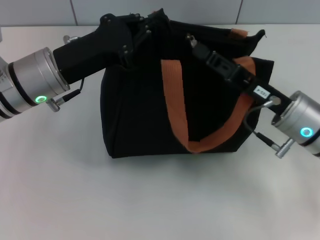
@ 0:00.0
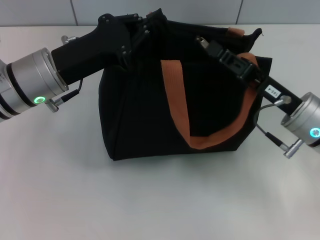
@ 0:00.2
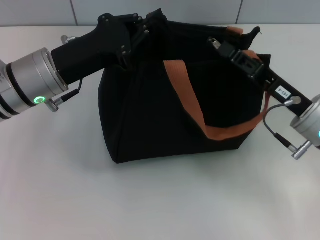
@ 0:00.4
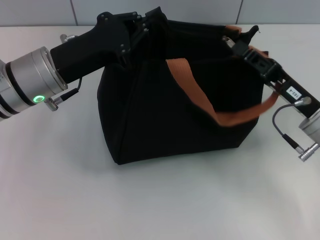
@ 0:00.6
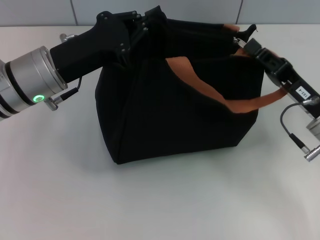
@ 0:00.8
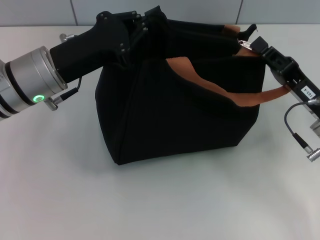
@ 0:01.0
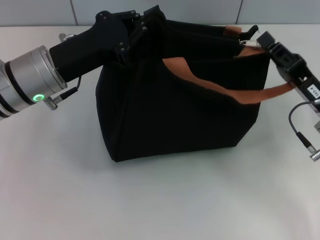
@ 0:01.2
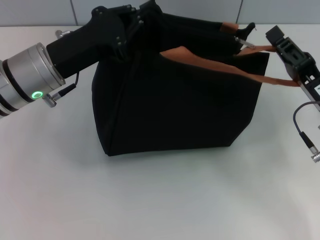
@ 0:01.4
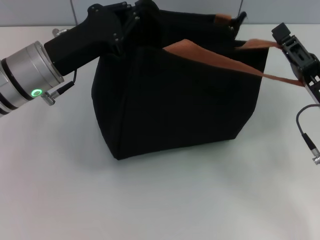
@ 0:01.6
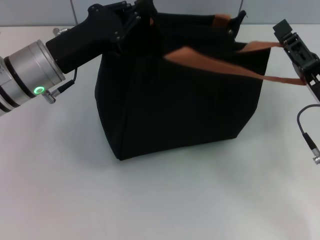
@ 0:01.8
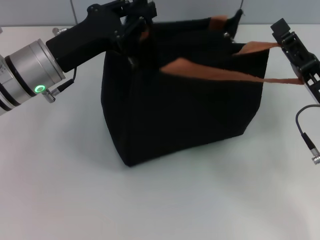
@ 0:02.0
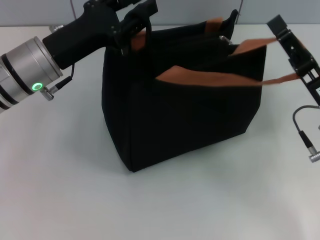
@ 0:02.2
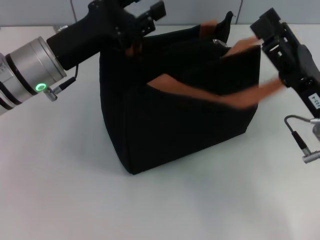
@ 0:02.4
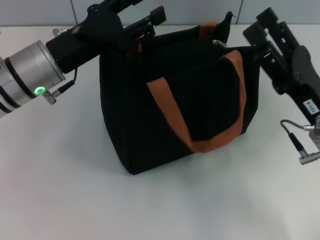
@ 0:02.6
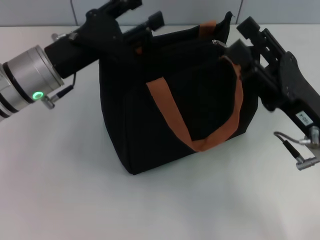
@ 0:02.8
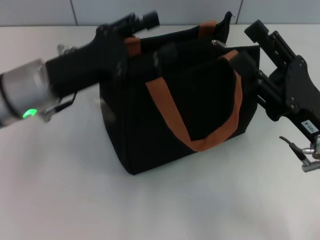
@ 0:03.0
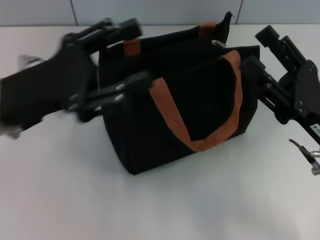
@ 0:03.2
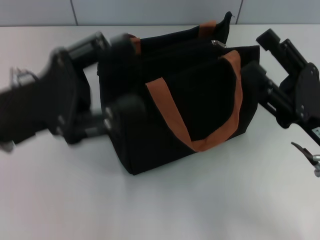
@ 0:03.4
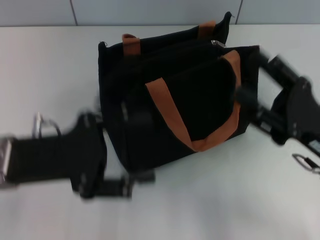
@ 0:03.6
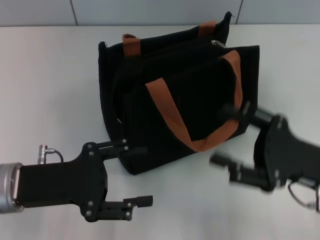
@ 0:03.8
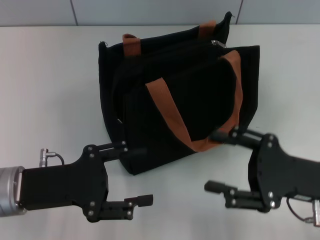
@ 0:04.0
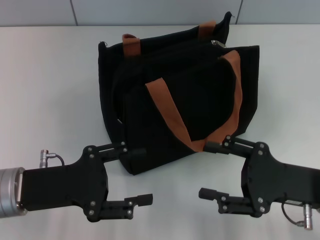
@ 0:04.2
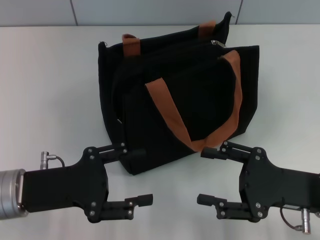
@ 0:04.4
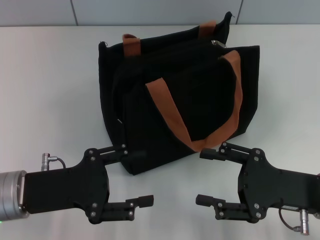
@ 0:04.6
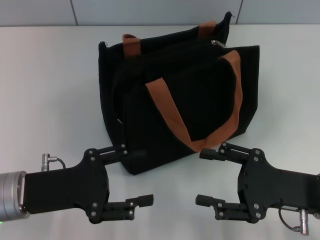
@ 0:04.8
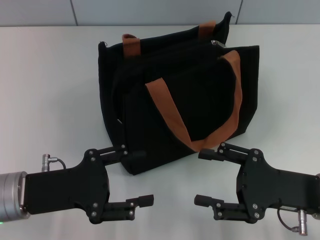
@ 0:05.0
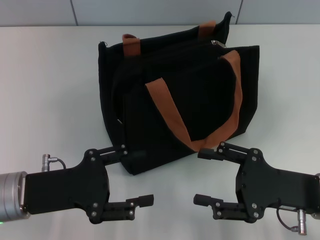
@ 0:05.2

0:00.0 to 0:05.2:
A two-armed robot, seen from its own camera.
Step, 0:01.4 to 0:02.0: Grab the zipper with your left hand.
0:00.0 to 0:01.8: The right gripper is displaced to the right by approximately 5 cm, and opens up.
0:01.8 to 0:03.4: The right gripper opens its fingers, while the left gripper heads backward, covering approximately 10 cm, and opens up.
0:03.4 to 0:05.2: The left gripper is displaced downward by approximately 10 cm.

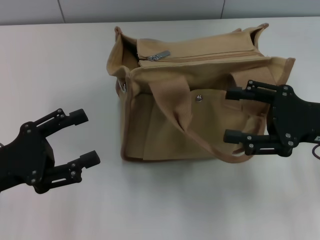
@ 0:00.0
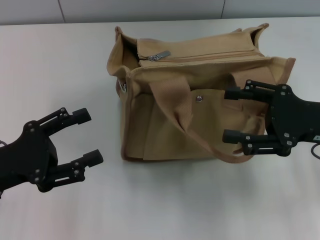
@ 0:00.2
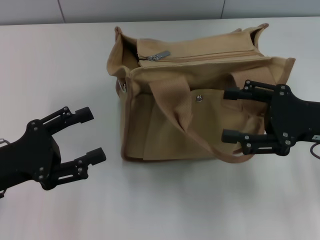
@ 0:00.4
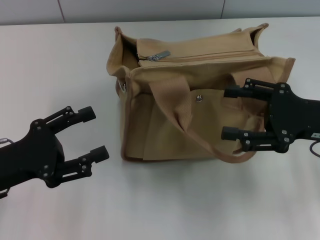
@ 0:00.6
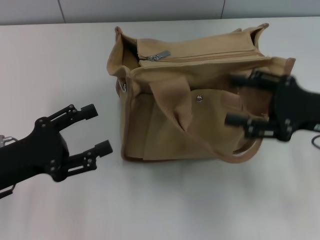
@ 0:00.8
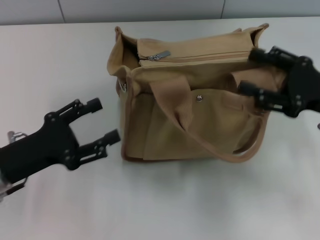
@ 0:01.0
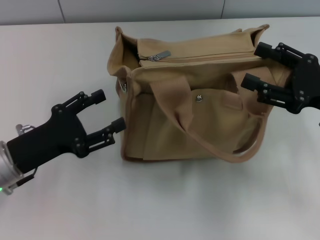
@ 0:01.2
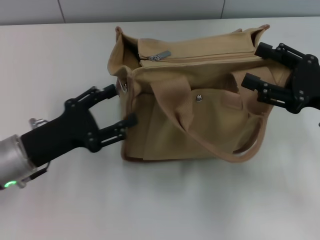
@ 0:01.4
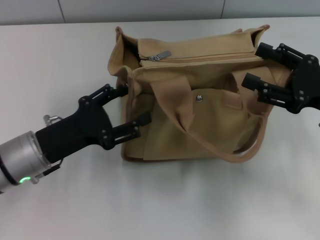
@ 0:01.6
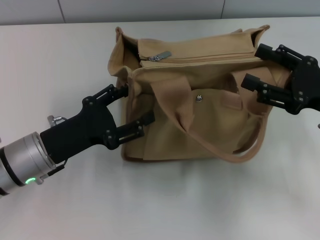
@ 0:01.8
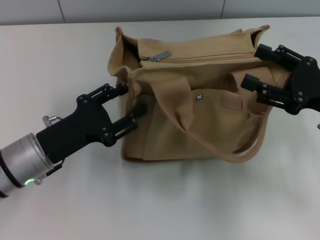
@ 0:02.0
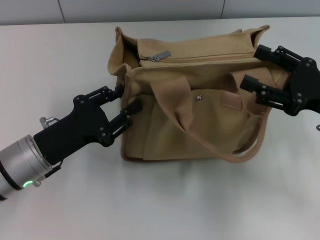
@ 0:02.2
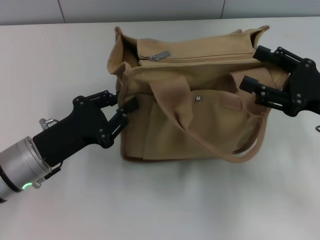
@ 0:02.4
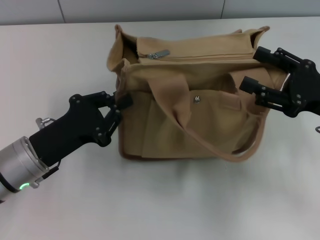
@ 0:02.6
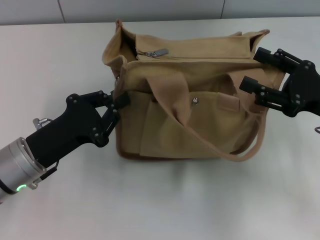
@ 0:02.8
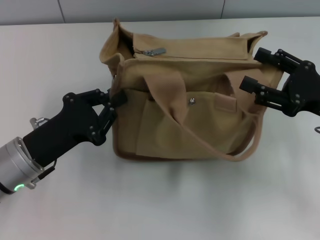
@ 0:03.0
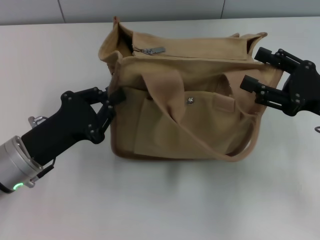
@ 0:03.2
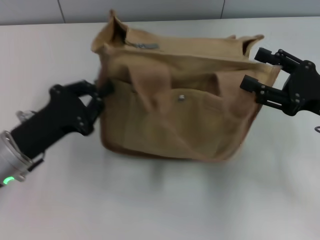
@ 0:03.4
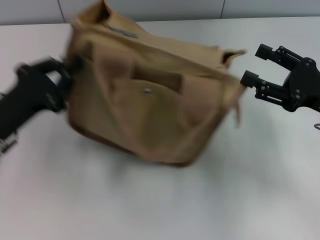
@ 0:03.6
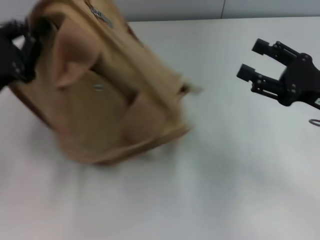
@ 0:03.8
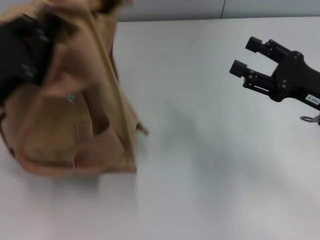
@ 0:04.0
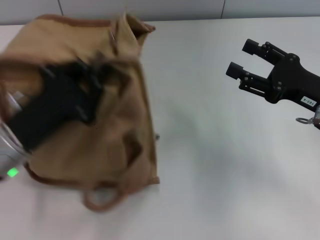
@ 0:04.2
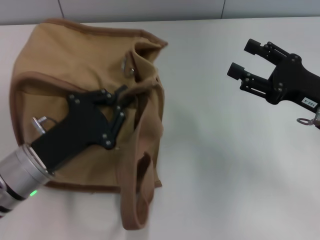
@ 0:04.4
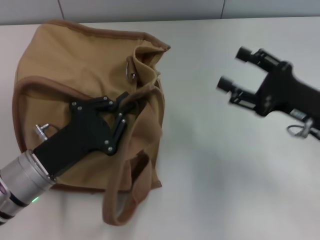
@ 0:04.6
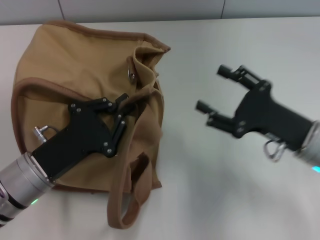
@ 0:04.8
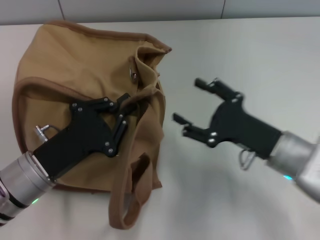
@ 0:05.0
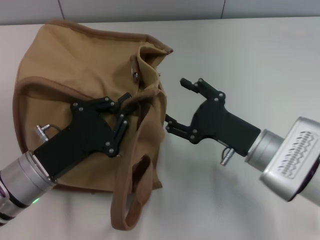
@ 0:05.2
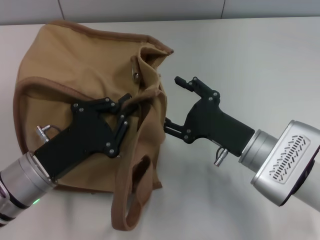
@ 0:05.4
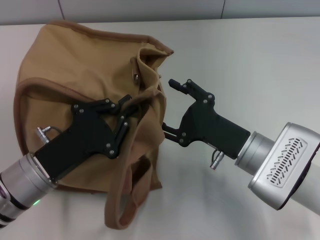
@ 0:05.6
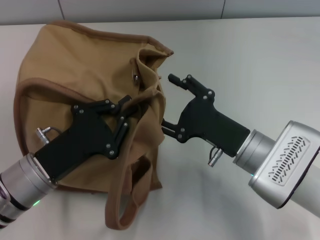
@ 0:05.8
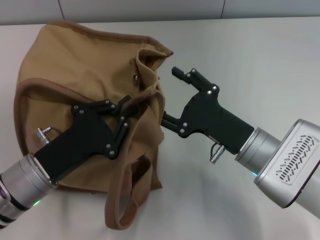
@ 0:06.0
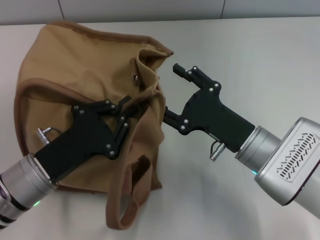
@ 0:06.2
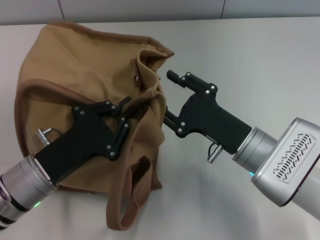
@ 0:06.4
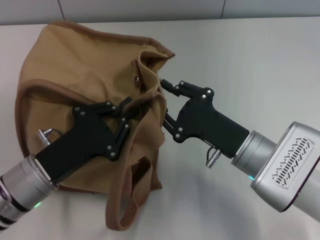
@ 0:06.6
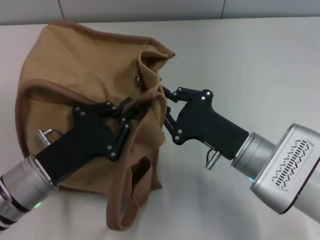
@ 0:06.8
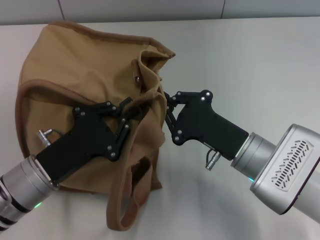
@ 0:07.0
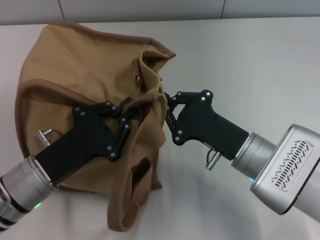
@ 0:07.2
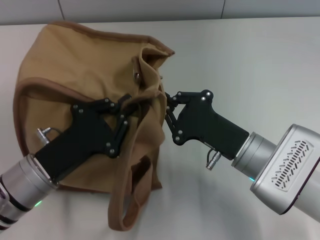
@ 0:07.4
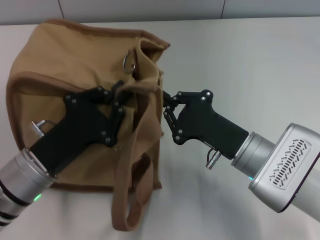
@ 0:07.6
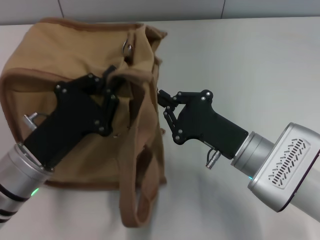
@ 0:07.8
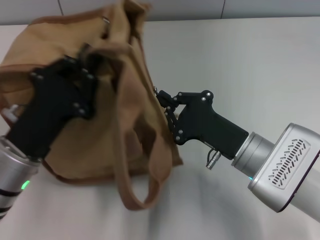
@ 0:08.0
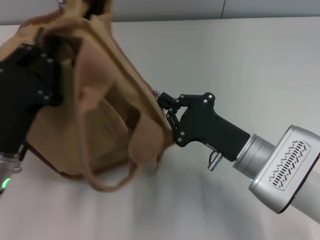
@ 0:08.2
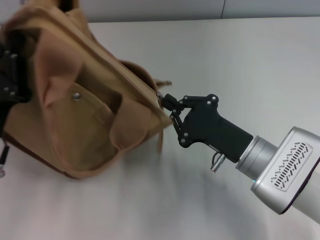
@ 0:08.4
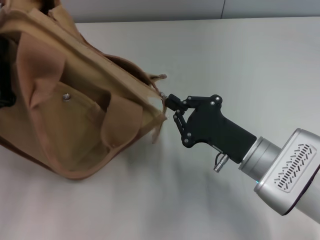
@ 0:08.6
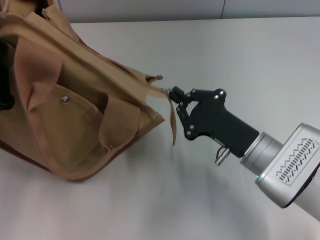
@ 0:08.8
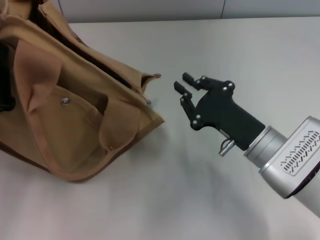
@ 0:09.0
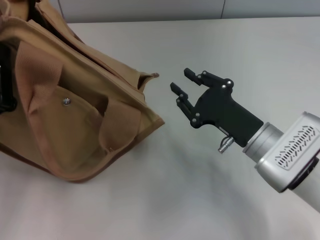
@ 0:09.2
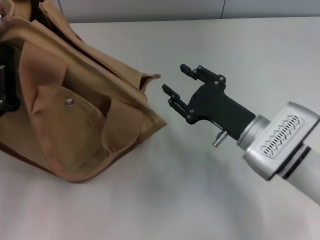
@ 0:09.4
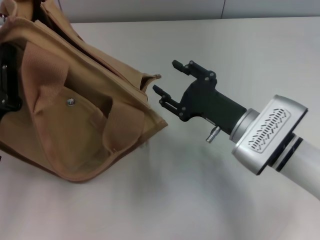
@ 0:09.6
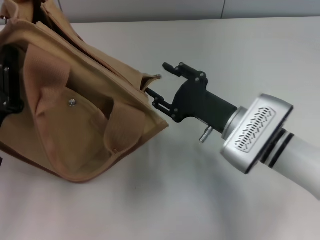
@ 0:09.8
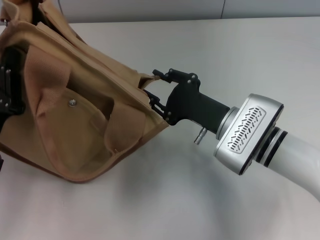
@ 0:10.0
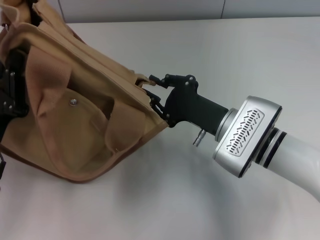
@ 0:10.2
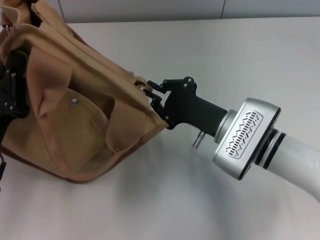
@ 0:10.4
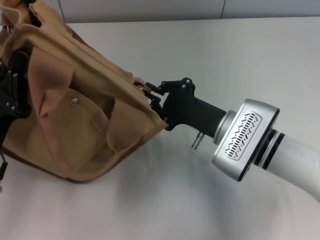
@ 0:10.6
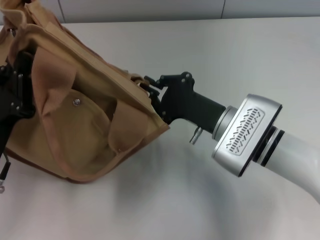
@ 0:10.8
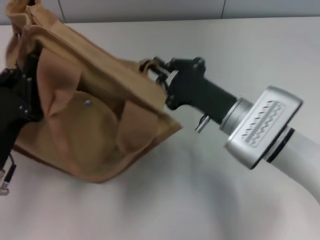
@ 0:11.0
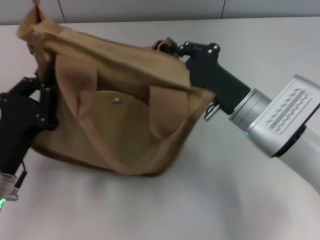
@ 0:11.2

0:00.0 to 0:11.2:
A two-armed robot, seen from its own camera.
Step, 0:00.0 to 0:08.8: Pull open the zipper with your right hand.
0:00.0 to 0:01.6: The left gripper shifts about 5 cm to the right.
0:01.6 to 0:03.2: The left gripper closes its fingers.
0:03.2 to 0:04.8: The left gripper goes to the left and returns, roughly 5 cm each way, while the right gripper moves to the left, some 5 cm.
0:04.8 to 0:06.4: The right gripper moves to the left, approximately 10 cm.
0:06.4 to 0:08.0: The right gripper closes.
0:08.0 to 0:09.6: The right gripper opens. Meanwhile the left gripper changes place by roughly 5 cm.
0:09.6 to 0:11.2: The right gripper closes its fingers.

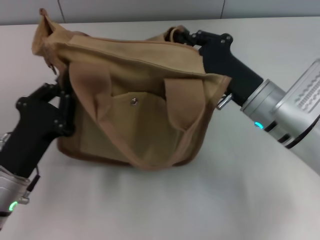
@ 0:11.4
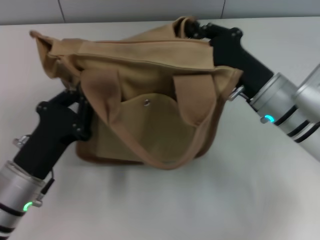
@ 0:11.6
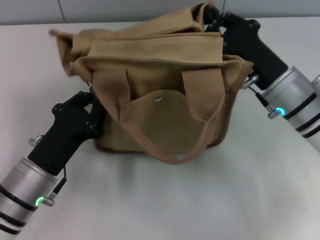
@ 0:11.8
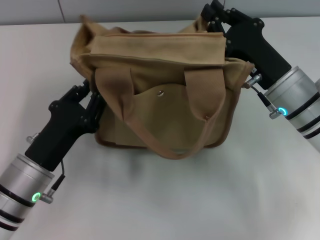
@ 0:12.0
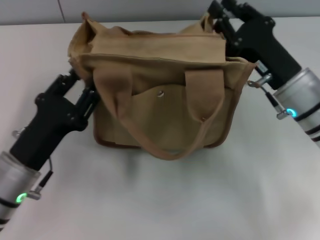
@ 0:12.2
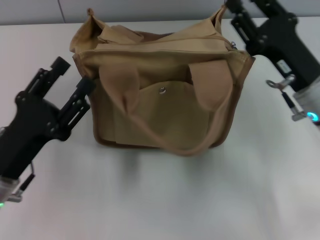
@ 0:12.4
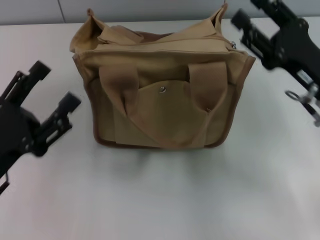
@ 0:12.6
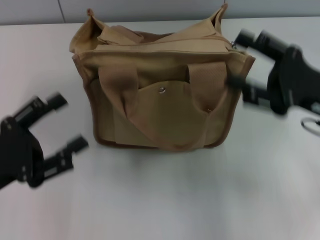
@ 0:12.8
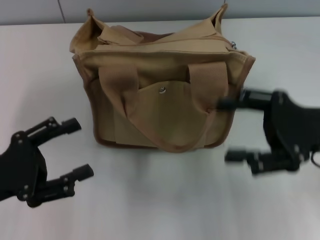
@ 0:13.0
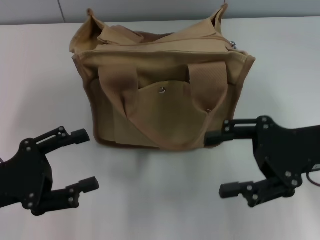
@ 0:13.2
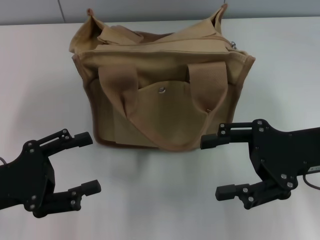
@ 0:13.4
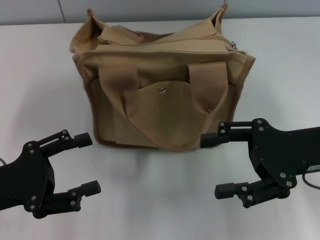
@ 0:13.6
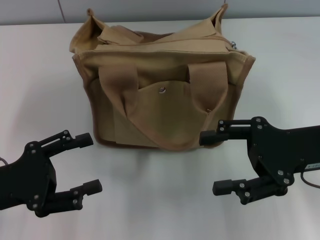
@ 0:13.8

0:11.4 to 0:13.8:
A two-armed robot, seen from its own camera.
0:11.4 to 0:12.6: The left gripper opens its fingers. Meanwhile the right gripper heads to the right, covering approximately 10 cm, and opens its fingers.
